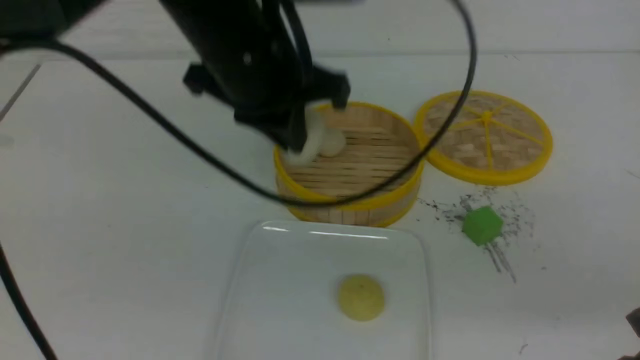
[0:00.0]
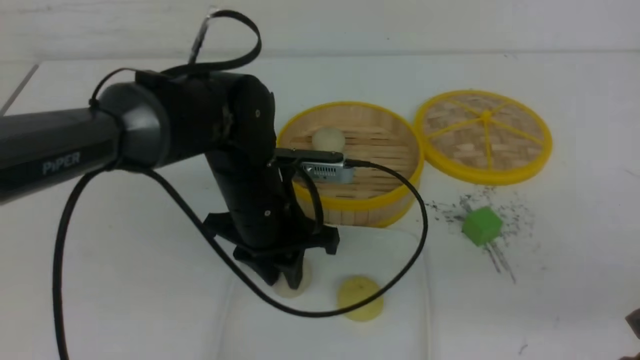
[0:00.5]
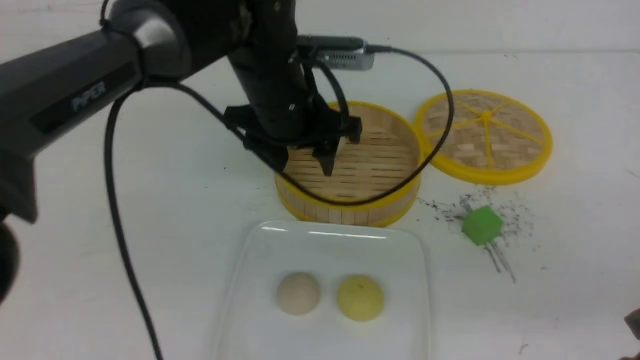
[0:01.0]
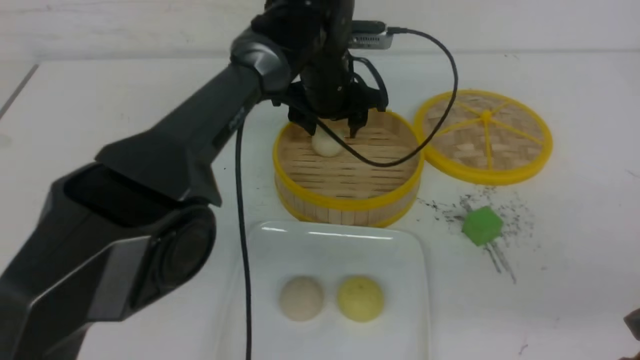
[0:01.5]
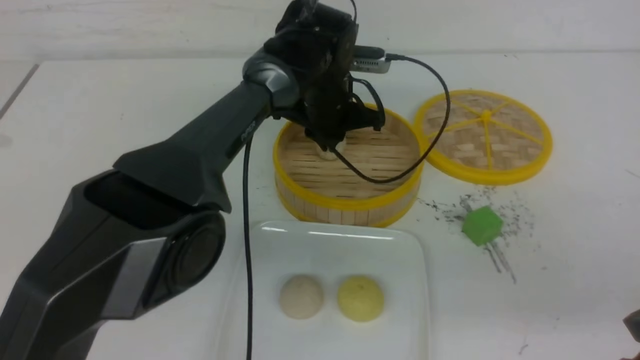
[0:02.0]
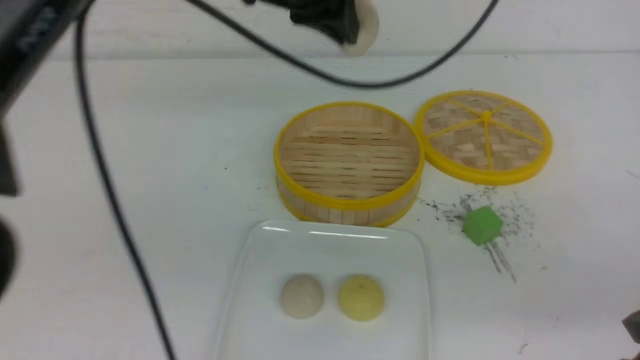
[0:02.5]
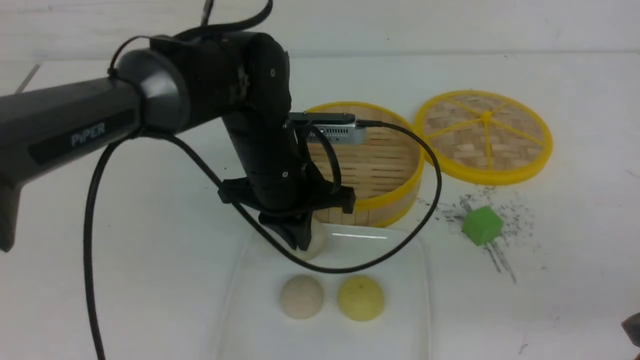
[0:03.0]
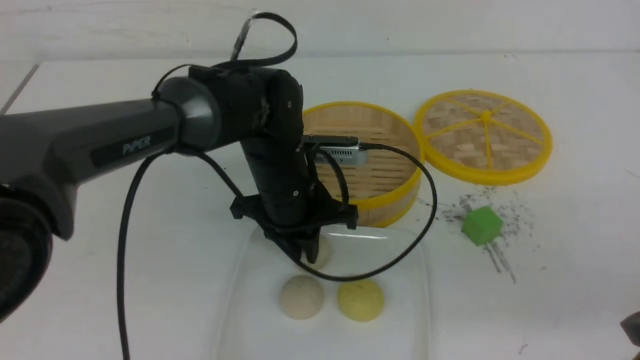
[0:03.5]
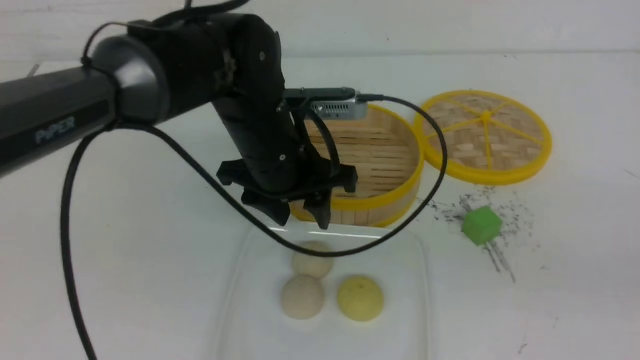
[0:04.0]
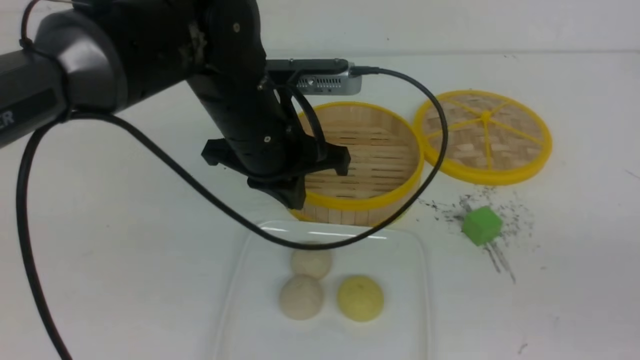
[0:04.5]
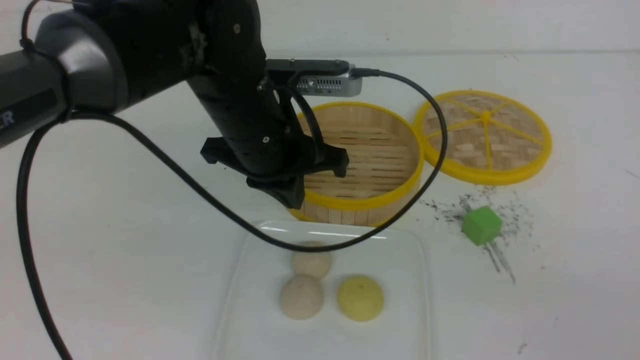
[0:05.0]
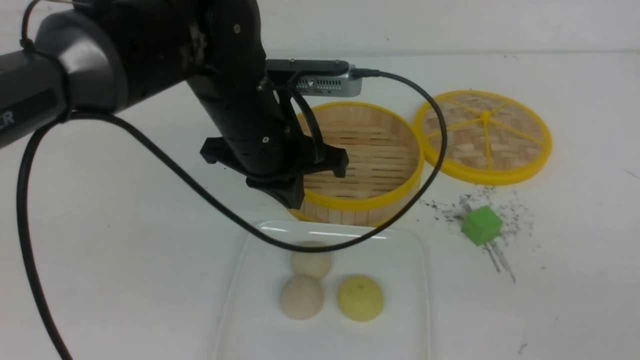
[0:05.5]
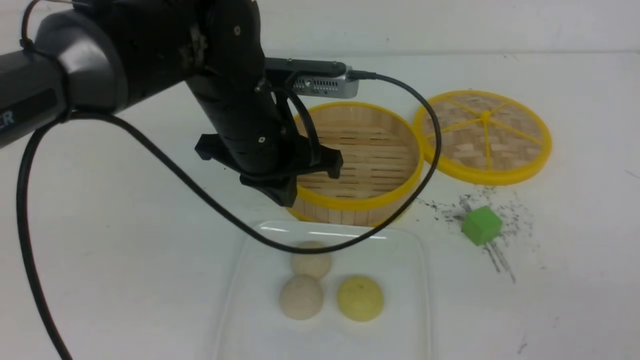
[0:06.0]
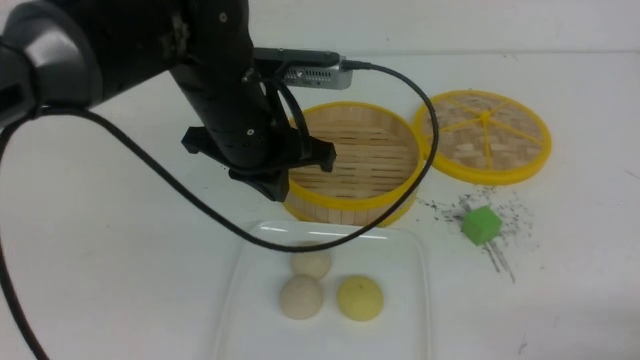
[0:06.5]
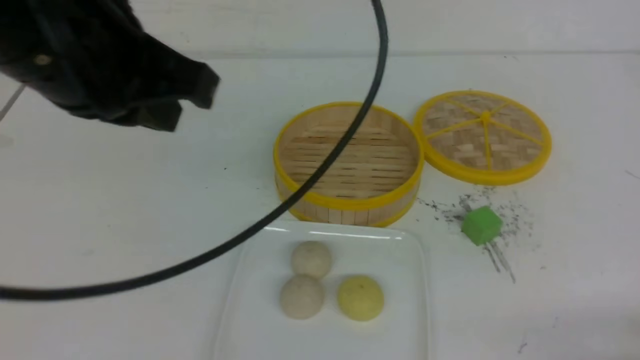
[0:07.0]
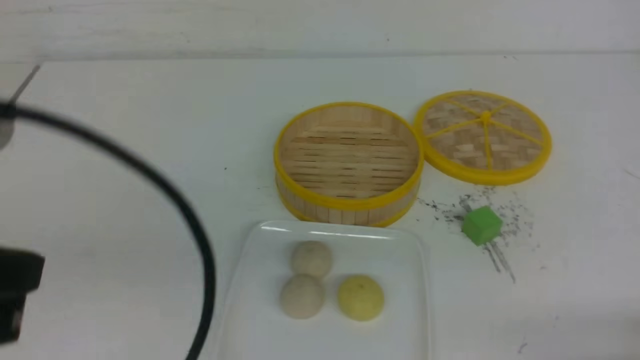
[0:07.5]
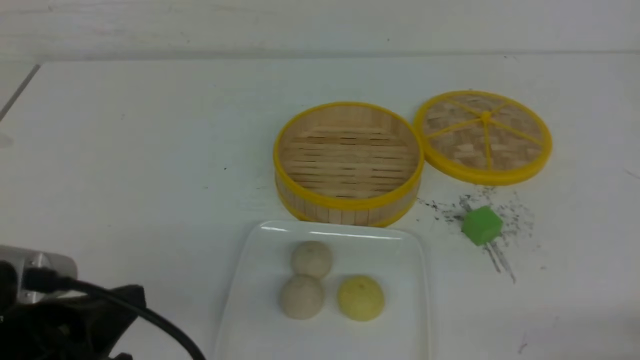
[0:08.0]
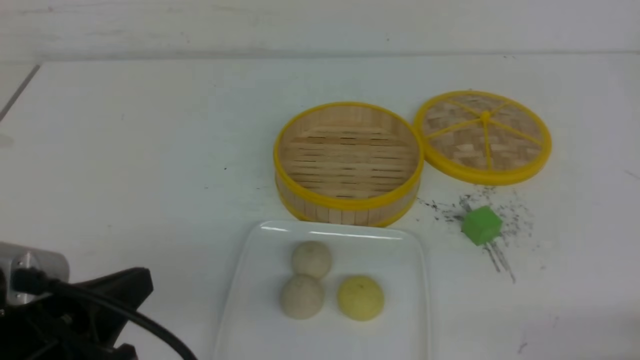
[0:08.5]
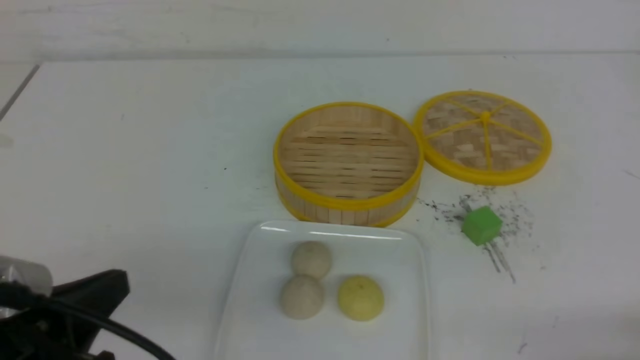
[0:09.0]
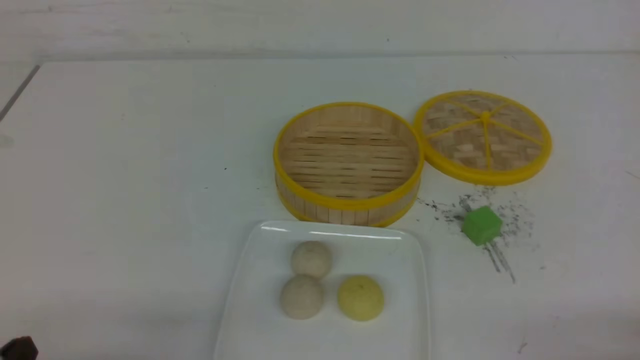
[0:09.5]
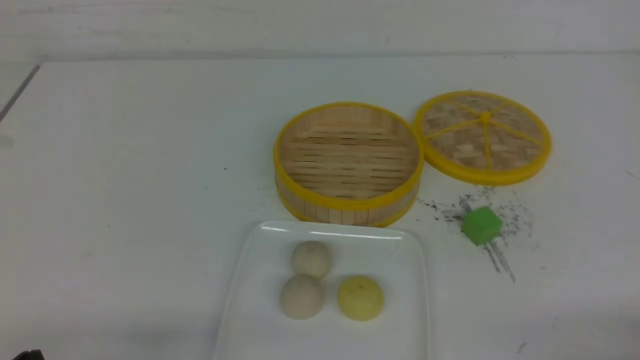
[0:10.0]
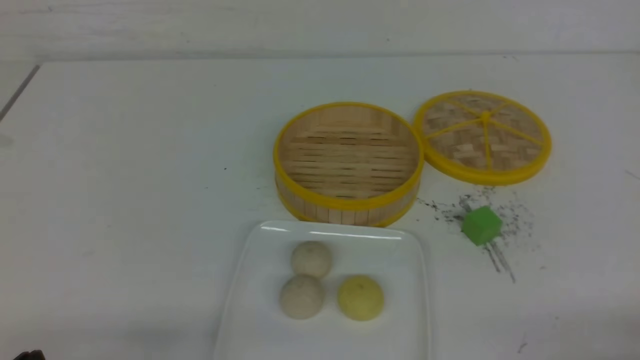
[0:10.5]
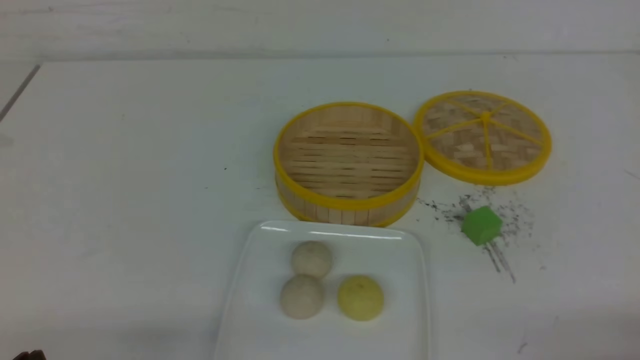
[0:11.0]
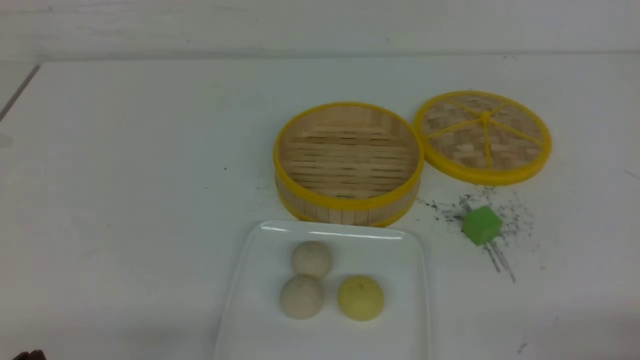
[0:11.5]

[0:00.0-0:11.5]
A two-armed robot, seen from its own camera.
Step, 0:01.0 to 0:01.5: use the left arm to grab the steamed stuffed bun that is closest to it.
Step, 0:02.0 to 0:03.5: use the left arm to put the steamed stuffed bun into the plate.
0:00.0 to 0:02.0: The left gripper travels forward, downward and to the right by approximately 20 cm, and opens, then closes once more.
0:02.0 to 0:04.0: The right gripper goes roughly 10 cm upward, backward and to the right. The left gripper moves up and down over approximately 15 cm, changing direction 2 times, and opens its fingers.
0:04.0 to 0:06.0: The right gripper is displaced downward by some 5 cm. Meanwhile the left gripper closes.
0:06.0 to 0:07.5: The right gripper moves downward, approximately 10 cm. The left gripper is displaced backward and to the left by about 25 cm.
0:07.5 to 0:09.5: The left gripper is displaced downward by roughly 20 cm.

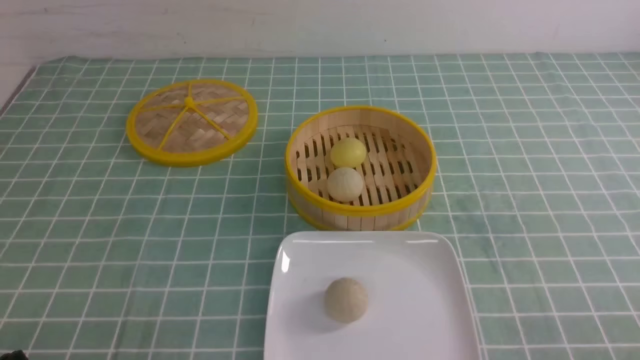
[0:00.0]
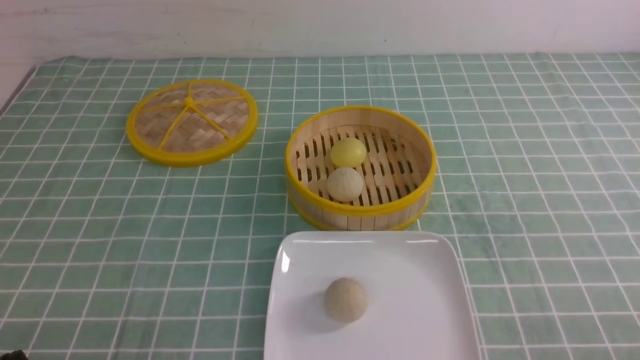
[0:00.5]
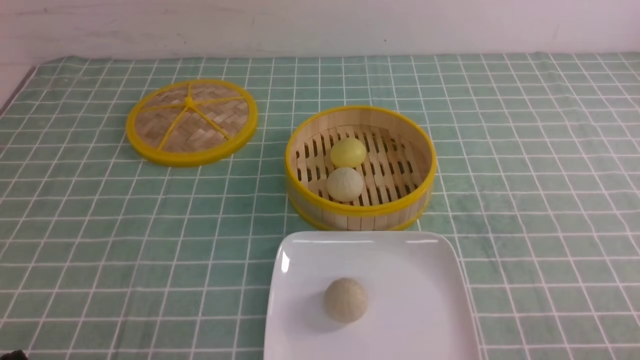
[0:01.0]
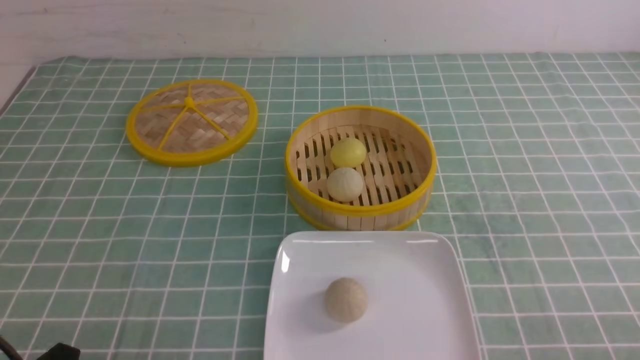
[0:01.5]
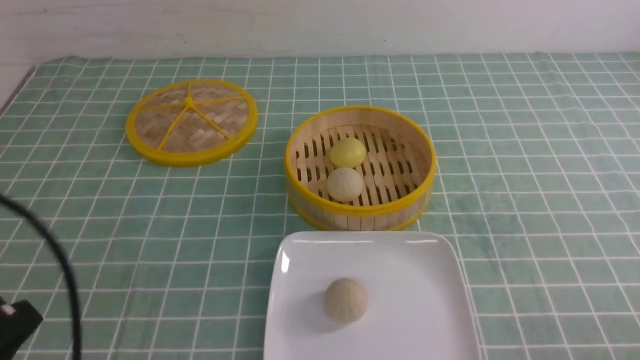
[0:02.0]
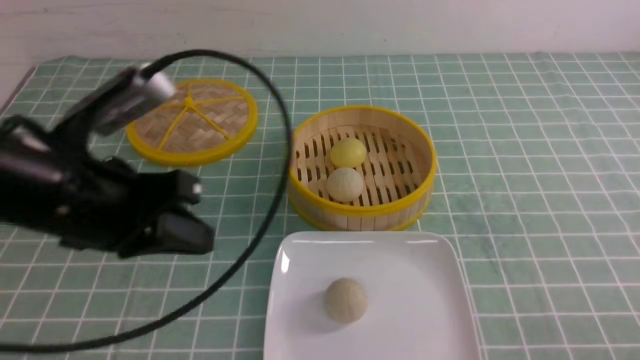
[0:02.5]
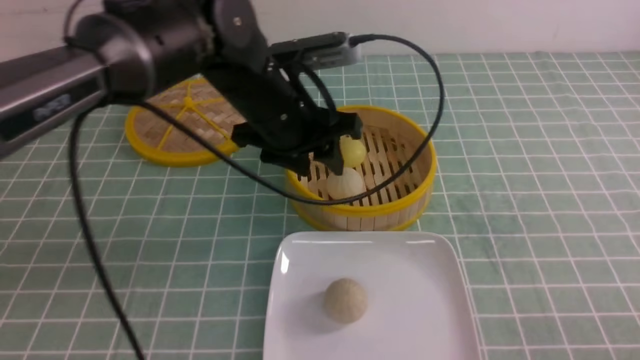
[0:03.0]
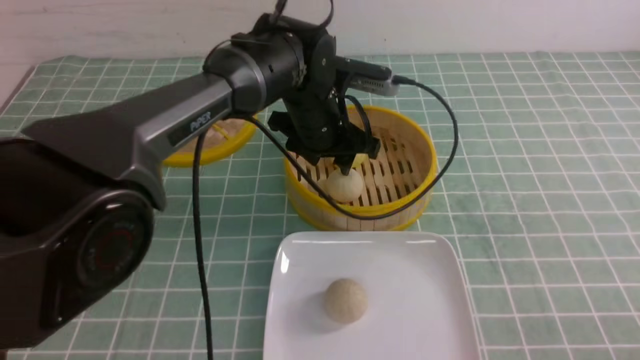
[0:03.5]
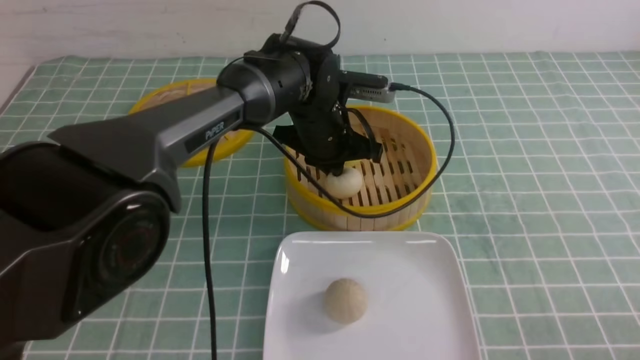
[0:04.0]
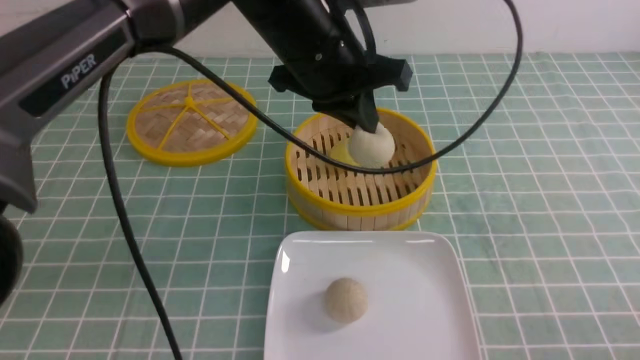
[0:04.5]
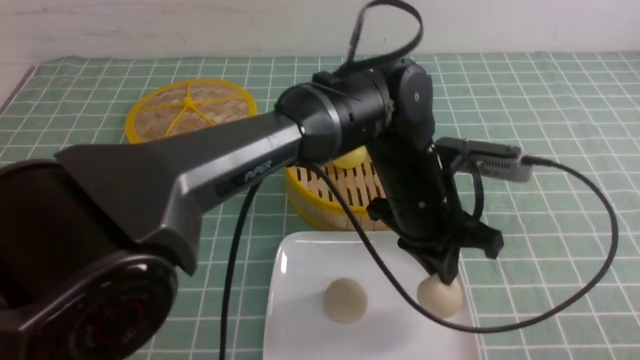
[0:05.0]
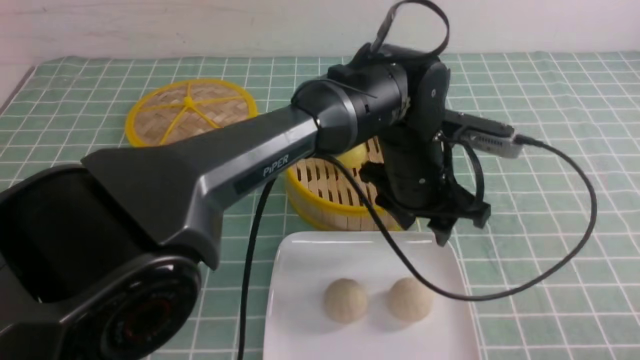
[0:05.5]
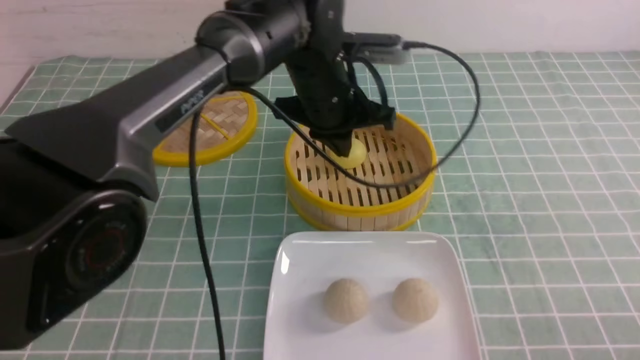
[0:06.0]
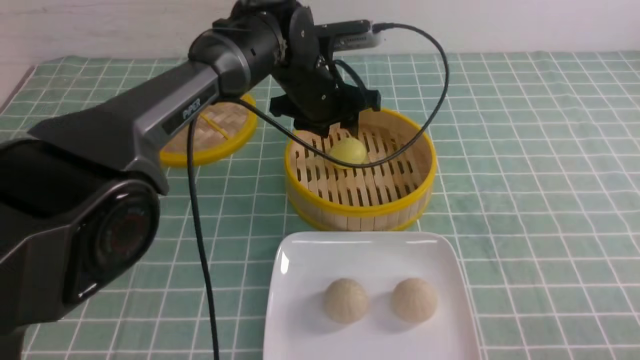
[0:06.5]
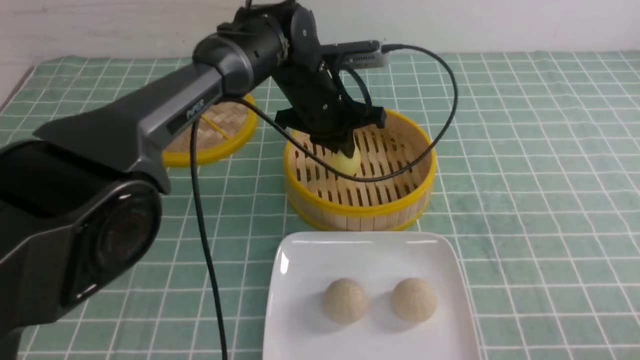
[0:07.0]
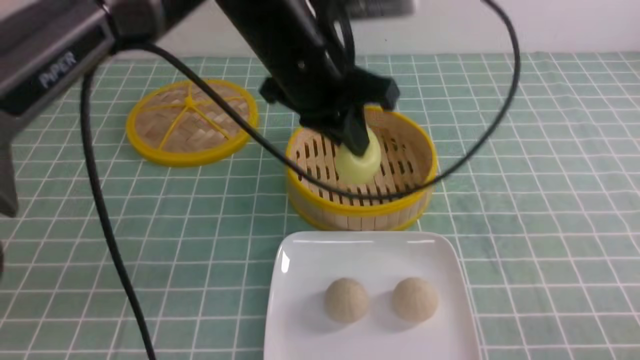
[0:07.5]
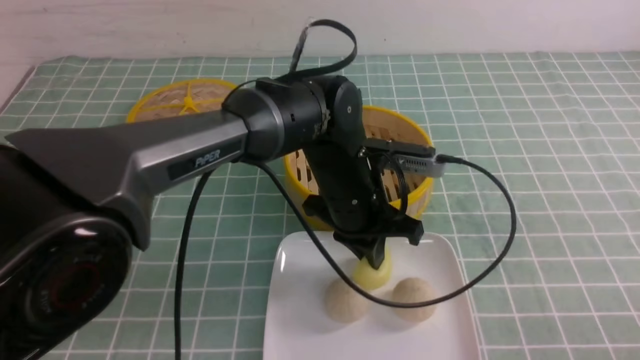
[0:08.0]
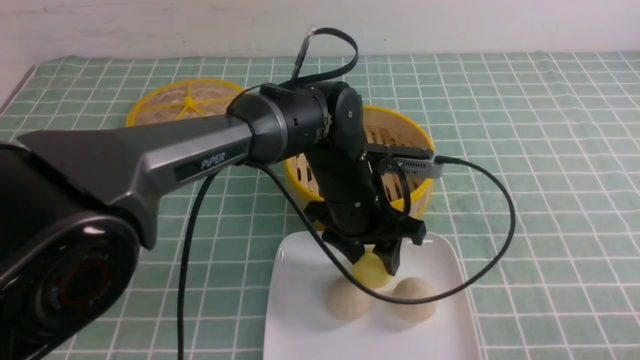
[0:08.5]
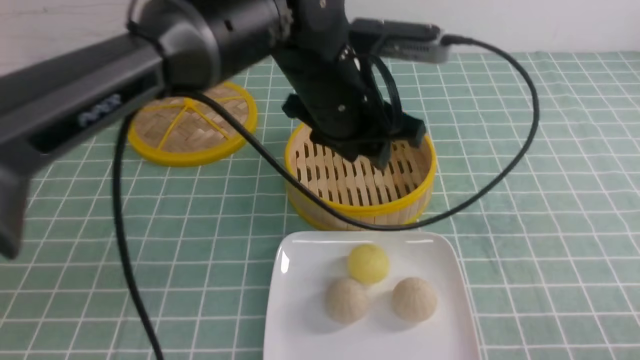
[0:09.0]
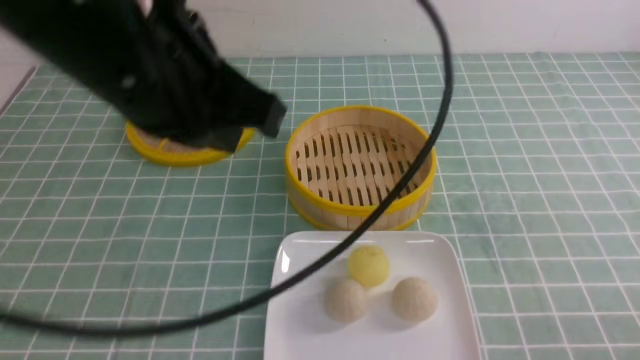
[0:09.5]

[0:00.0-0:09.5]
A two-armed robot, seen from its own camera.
Step, 0:00.0 to 0:04.0: use the left arm to grab the steamed stuffed bun that is closest to it.
Step, 0:04.5 to 0:05.0: use the left arm to put the steamed stuffed bun into the plate.
Step, 0:05.5 to 0:06.5: use the left arm to grab the steamed stuffed bun that is closest to it.
Step, 0:07.0 to 0:08.0: use the left arm to put the steamed stuffed bun into the plate.
0:00.0 to 0:02.0: The left gripper goes roughly 10 cm upward.
0:02.0 to 0:04.0: The left gripper travels forward and to the right by about 40 cm, and opens and closes again.
0:04.0 to 0:05.5: The left gripper is displaced backward and to the right by about 15 cm, and opens.
0:05.5 to 0:07.5: The left gripper travels to the left and upward by about 10 cm, goes forward and returns, some 15 cm each way, and closes.
0:07.5 to 0:09.5: The left gripper shifts roughly 20 cm backward, to the left and upward, and opens, then closes again.
